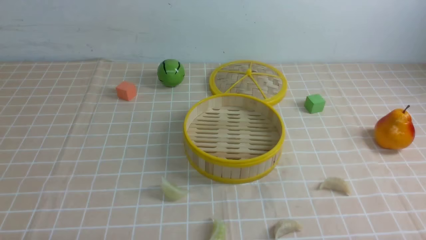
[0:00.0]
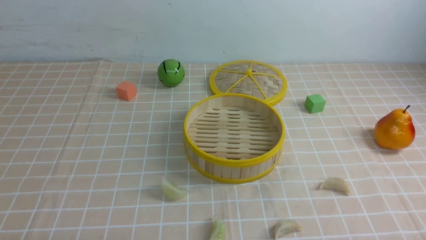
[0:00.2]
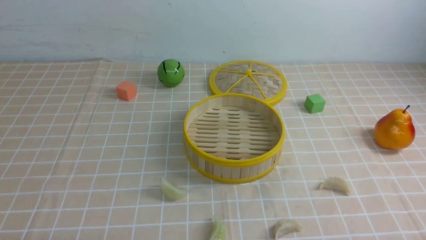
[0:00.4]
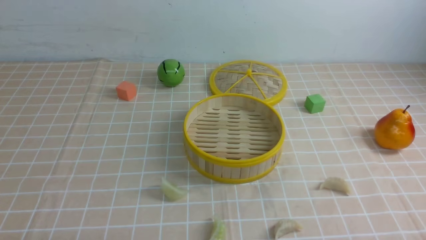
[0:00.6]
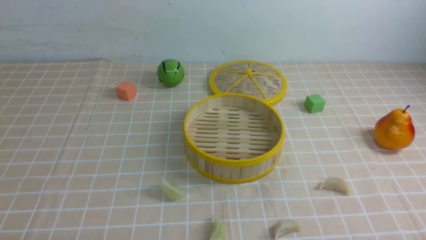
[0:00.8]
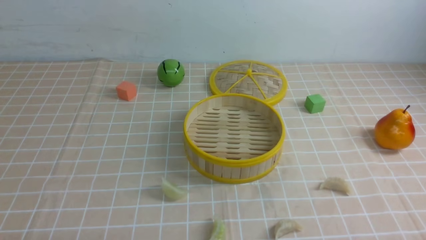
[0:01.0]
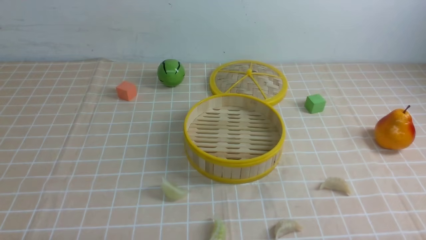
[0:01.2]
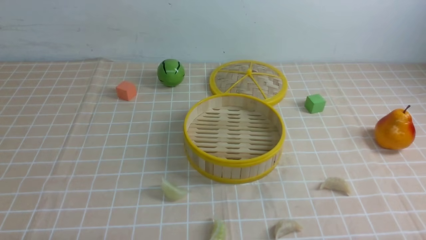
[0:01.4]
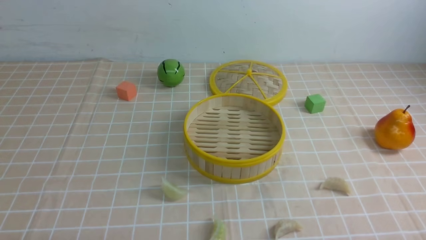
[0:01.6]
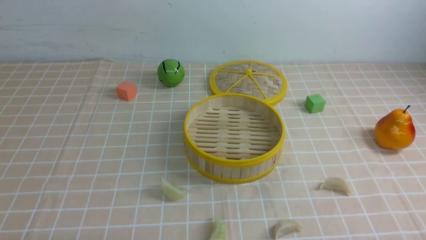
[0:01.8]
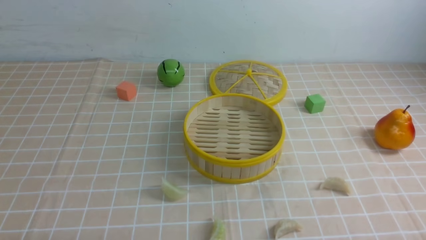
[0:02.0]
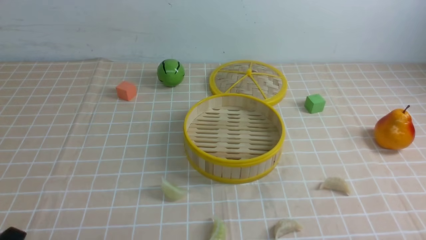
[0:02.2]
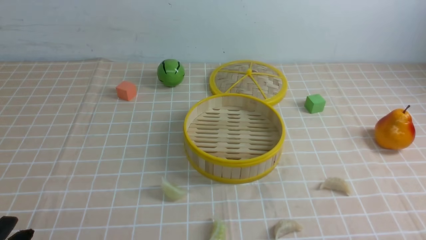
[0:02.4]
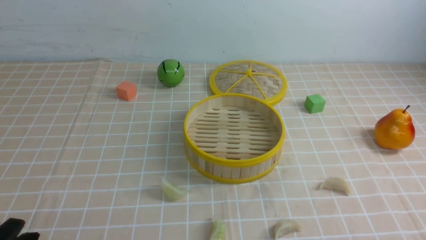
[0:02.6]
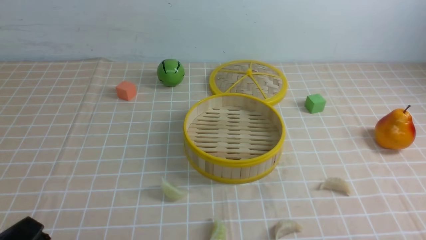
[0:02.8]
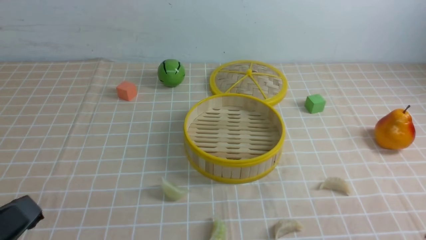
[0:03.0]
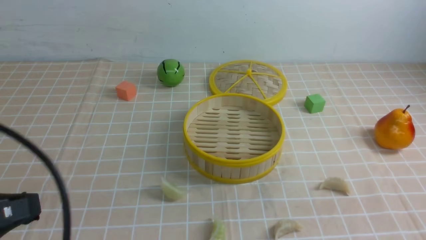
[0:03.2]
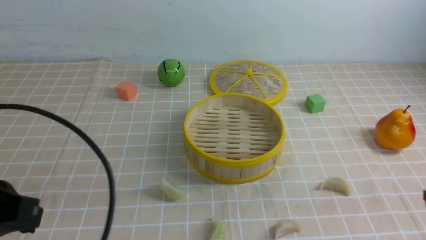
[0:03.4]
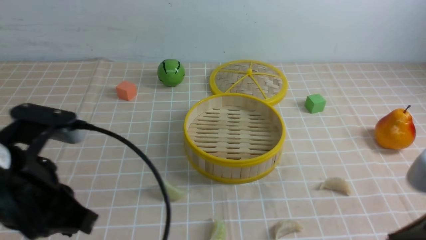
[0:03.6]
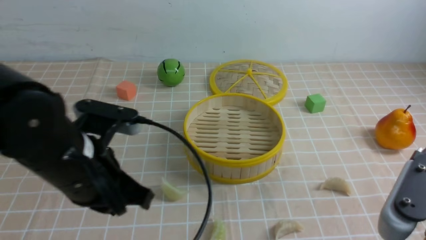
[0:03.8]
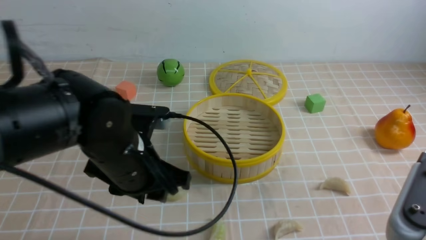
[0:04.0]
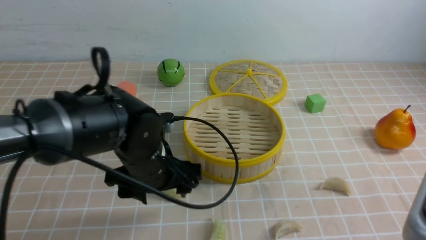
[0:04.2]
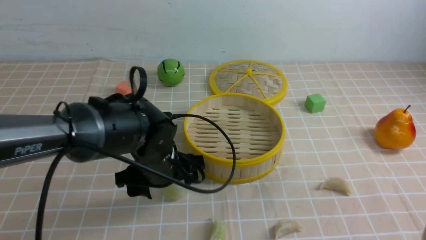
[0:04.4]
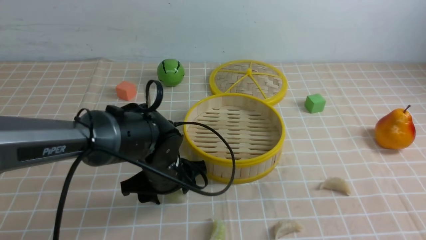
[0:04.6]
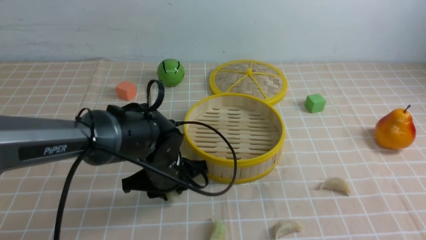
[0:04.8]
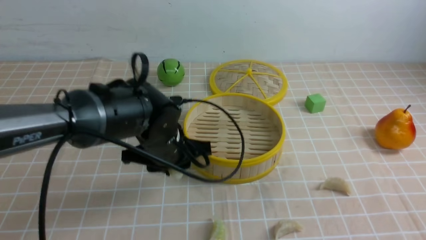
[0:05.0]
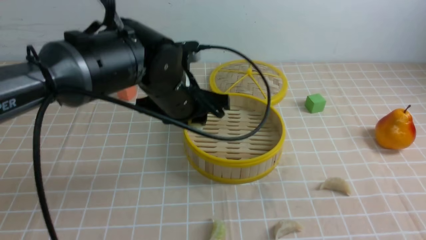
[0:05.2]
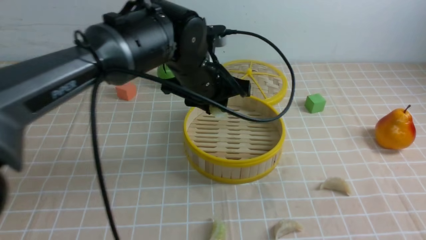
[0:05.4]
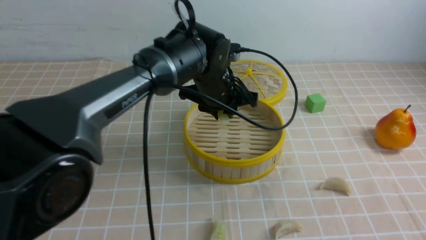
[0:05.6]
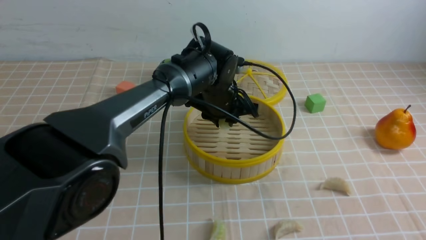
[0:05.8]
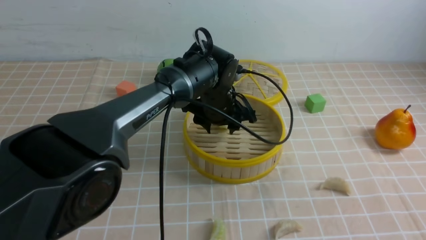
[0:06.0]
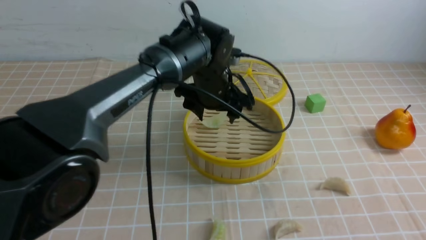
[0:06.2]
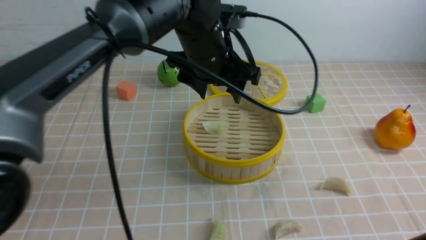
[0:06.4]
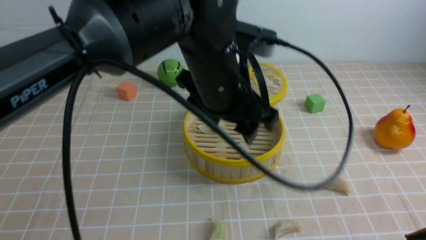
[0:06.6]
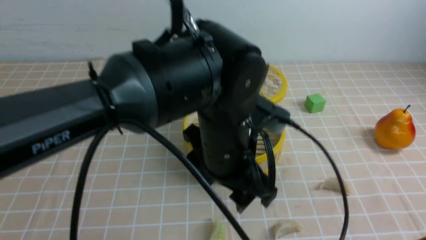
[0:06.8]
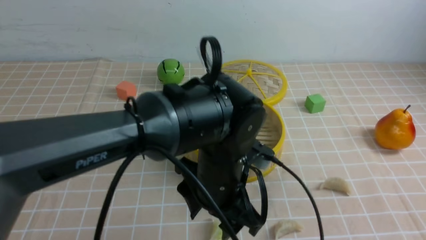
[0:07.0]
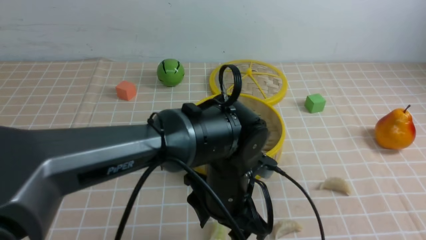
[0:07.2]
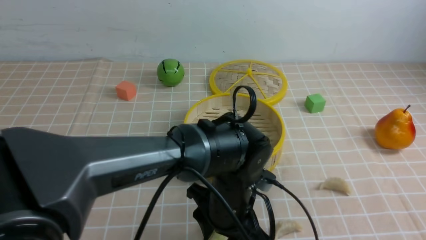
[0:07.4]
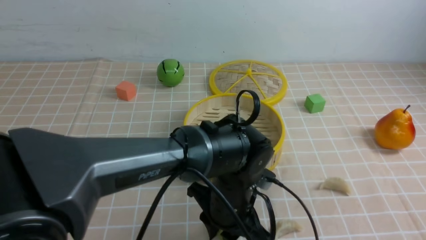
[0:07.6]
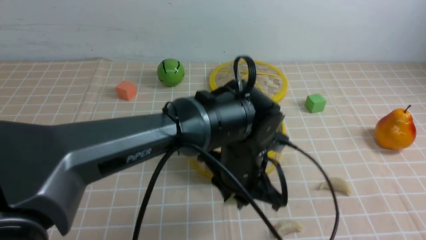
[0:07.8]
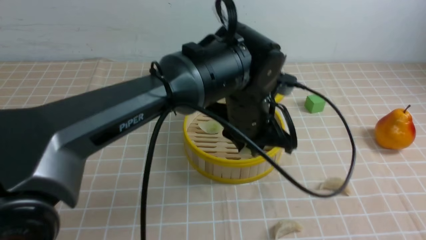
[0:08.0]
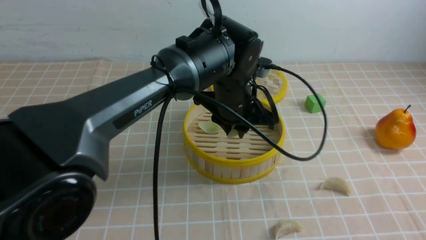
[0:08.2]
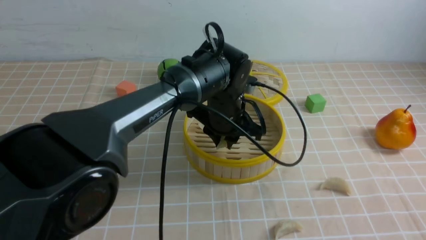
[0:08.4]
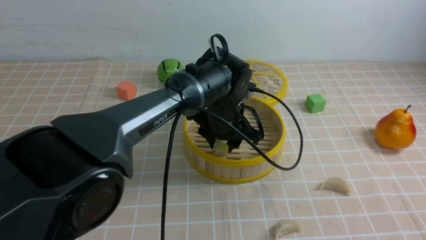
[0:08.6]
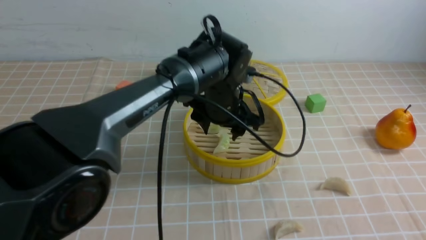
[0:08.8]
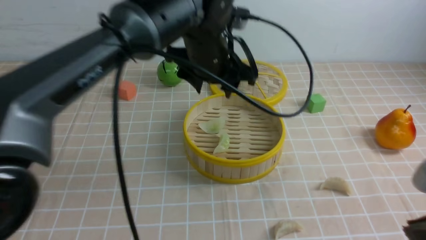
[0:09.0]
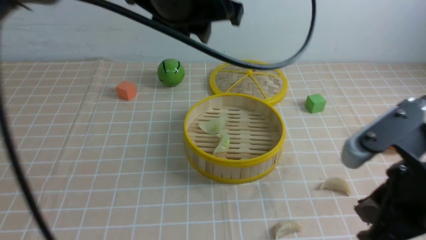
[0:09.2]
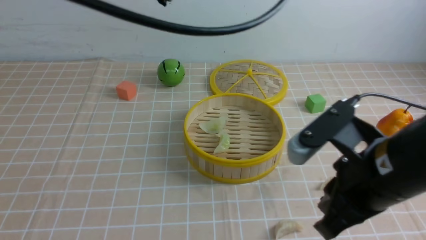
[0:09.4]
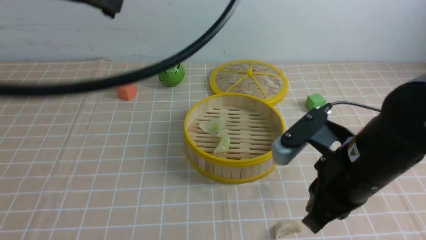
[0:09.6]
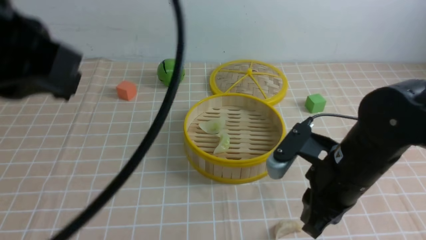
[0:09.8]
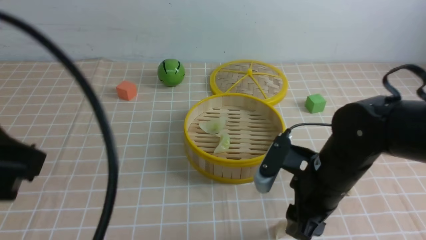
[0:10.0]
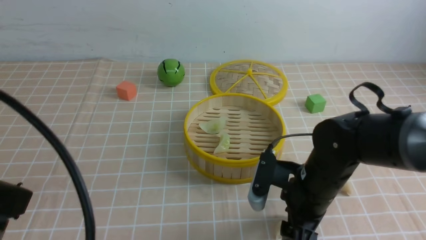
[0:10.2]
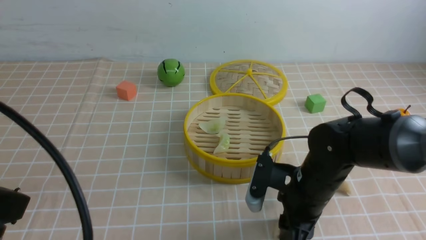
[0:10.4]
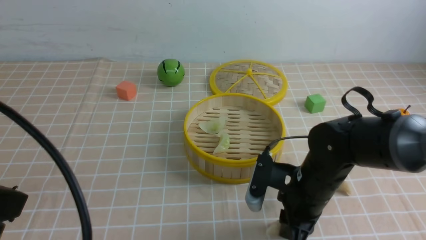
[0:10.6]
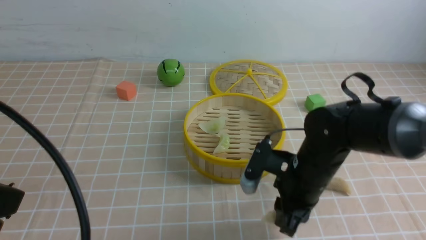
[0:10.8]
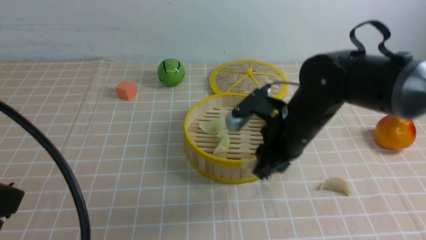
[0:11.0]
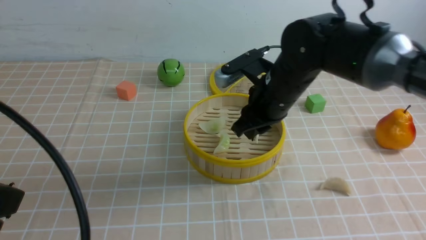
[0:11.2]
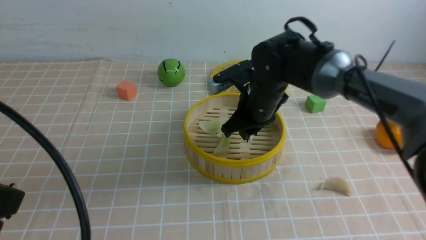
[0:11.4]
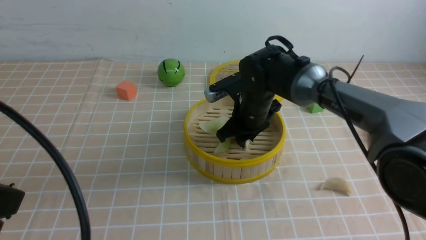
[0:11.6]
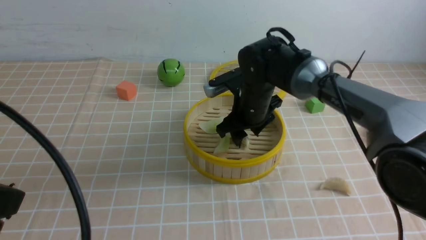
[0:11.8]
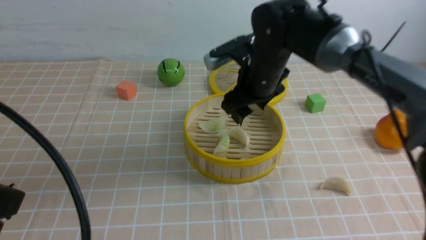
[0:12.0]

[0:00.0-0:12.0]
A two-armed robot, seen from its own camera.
Task of the whole recording: put the dumplings into the steamer on the table with the brown tablecloth.
Step, 0.0 to 4.6 s: use the left arm to grab a dumpling.
Step, 4.8 to 6.2 s: use the left arm to put the dumpling into the steamer.
Step, 6.4 to 7.4 s: use the left arm to grab a dumpling.
Step, 7.6 to 8.8 s: use the left arm to put the dumpling into the steamer.
Step, 9.0 to 10.4 s: use the right arm to grab a dumpling.
Step, 10.6 to 12.0 s: use the right arm to put the dumpling into the steamer.
0.0 to 1.6 s: Neither gripper changes place.
1.6 to 3.0 s: The left gripper moves upward, some 10 cm.
3.0 to 4.4 s: The right gripper heads upward, covering about 5 cm. Meanwhile the left gripper moves forward, to the right and downward, some 30 cm, and opens.
4.4 to 6.0 s: The left gripper heads forward and to the right, covering about 15 cm, and closes, then opens again.
6.0 to 7.6 s: The right gripper moves some 5 cm. The left gripper goes roughly 15 cm backward.
7.6 to 9.0 s: The right gripper travels forward by roughly 5 cm; the left gripper goes up and down, about 20 cm each way, reversing 2 times.
9.0 to 10.4 s: The left gripper travels backward and to the left by about 35 cm, and closes up, while the right gripper travels forward, downward and to the left by some 25 cm, and opens up.
10.4 to 12.0 s: The right gripper shifts approximately 20 cm upward and forward.

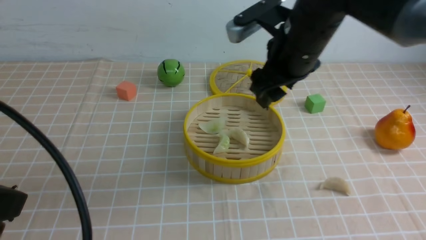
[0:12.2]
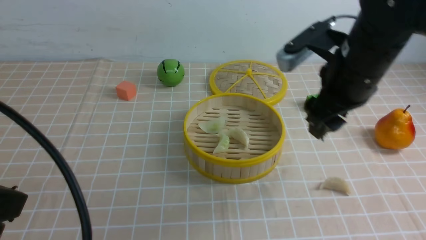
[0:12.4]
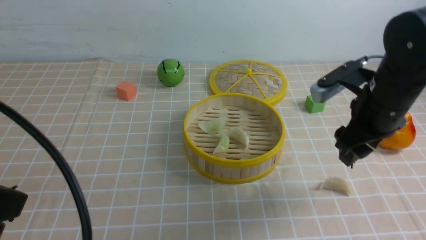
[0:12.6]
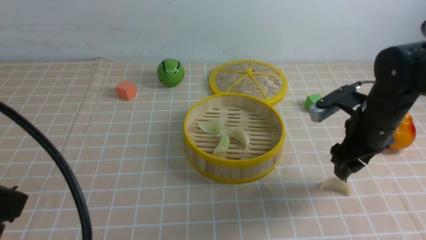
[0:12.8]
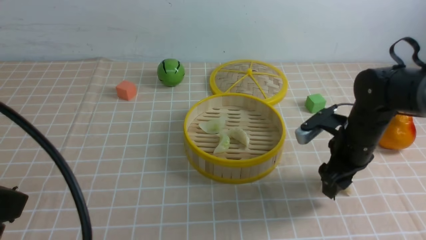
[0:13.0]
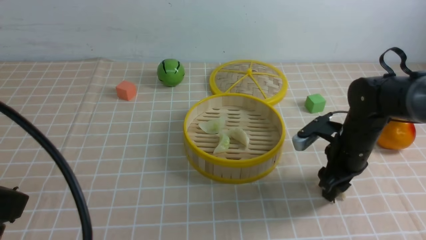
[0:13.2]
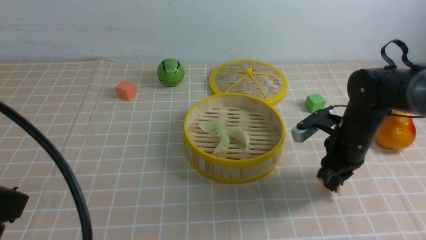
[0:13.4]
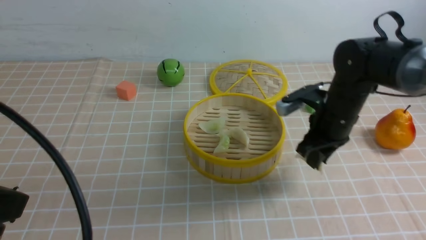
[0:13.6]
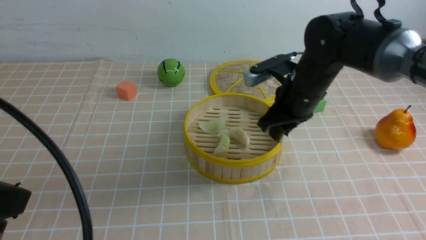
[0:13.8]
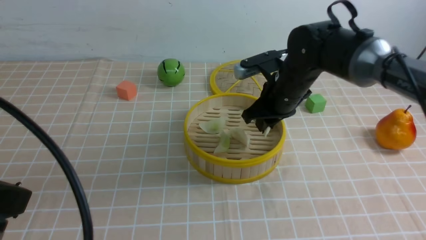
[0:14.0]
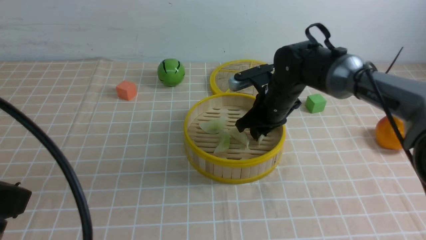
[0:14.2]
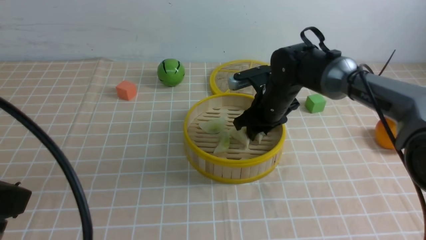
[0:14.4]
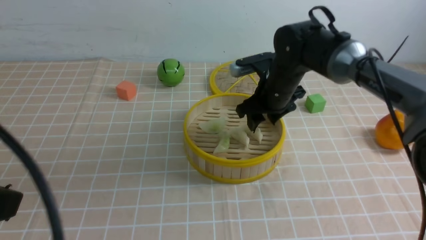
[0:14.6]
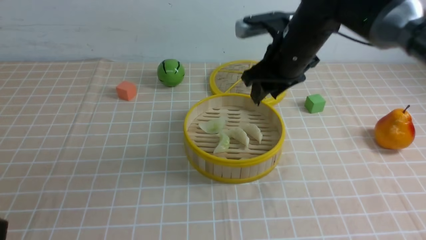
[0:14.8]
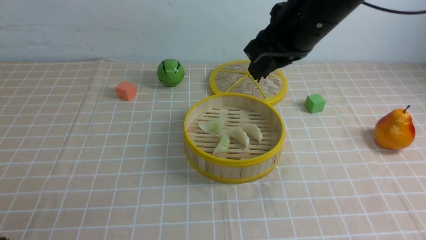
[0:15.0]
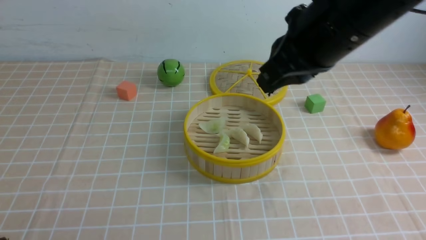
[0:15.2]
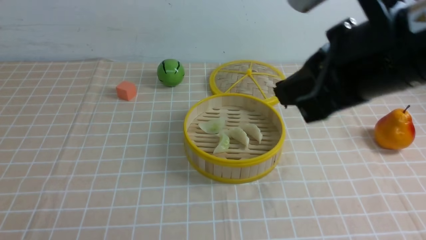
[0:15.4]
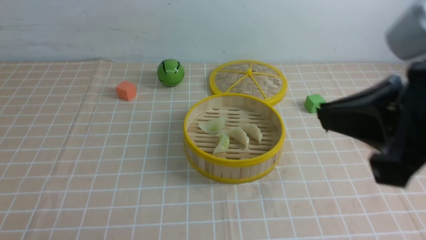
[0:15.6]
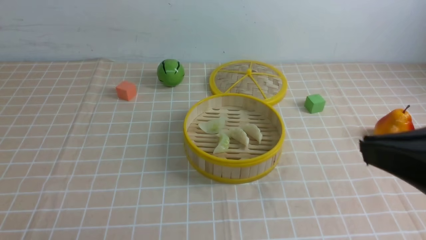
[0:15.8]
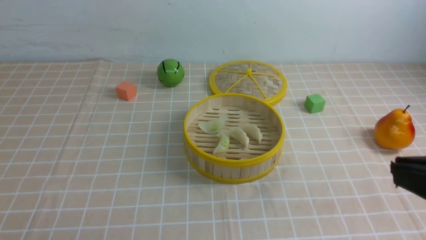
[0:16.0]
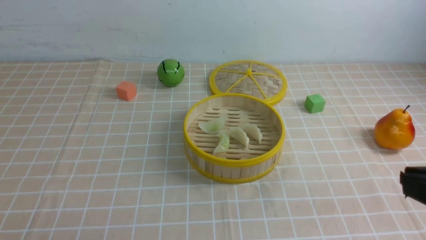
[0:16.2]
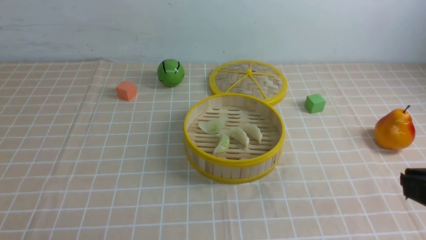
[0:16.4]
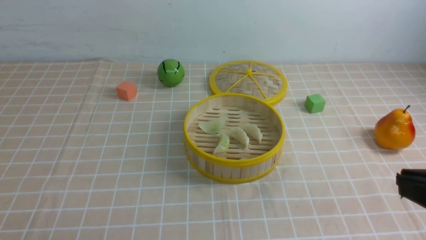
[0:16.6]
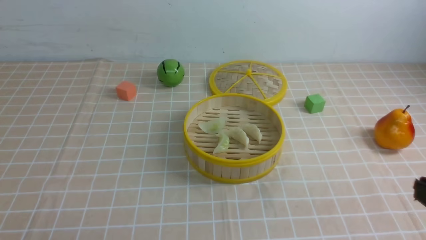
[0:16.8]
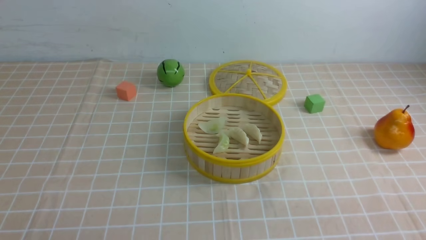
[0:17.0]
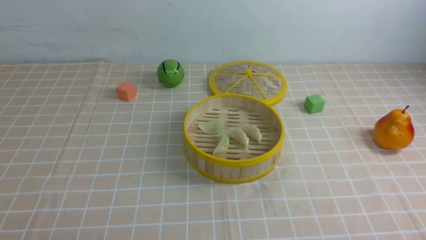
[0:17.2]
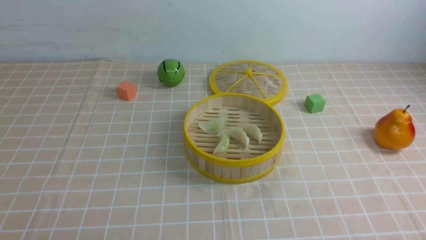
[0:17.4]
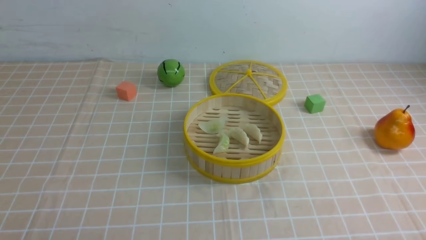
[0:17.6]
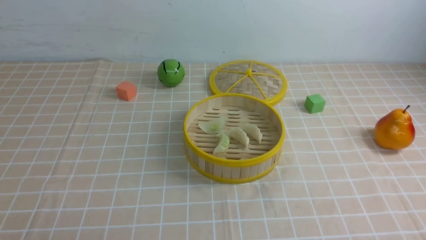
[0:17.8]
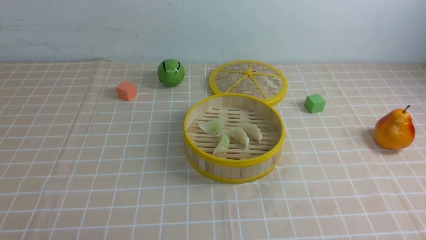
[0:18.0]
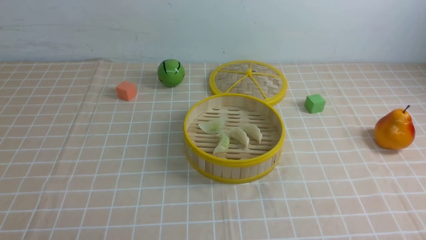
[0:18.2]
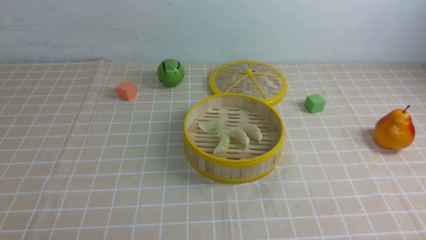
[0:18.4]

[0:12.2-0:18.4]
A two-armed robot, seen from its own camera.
Task of the whole recording: put the dumplings into the steamer on the table with the brown tablecloth.
Step, 12.2 to 13.2 s: use the right arm to grab a dumpling.
Step, 13.4 to 14.6 s: use the right arm to put the dumpling into the steamer.
12.2 to 13.8 s: The right gripper shifts approximately 10 cm downward, and closes its fingers.
13.8 to 15.4 s: The left gripper moves downward and backward, some 15 cm, while the right gripper moves backward and upward, approximately 25 cm, and opens, then closes again.
15.4 to 16.8 s: The right gripper heads backward, to the right and downward, covering some 20 cm.
